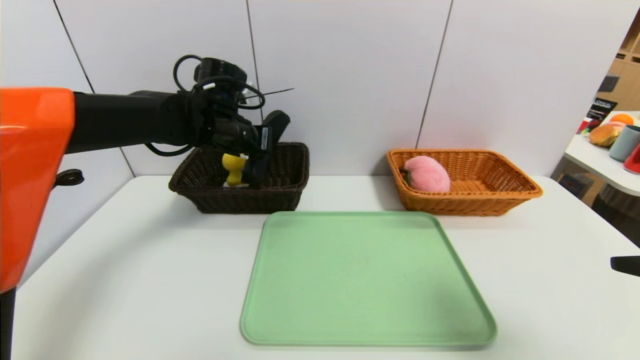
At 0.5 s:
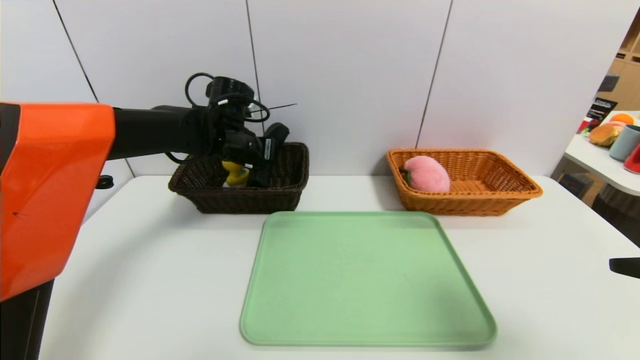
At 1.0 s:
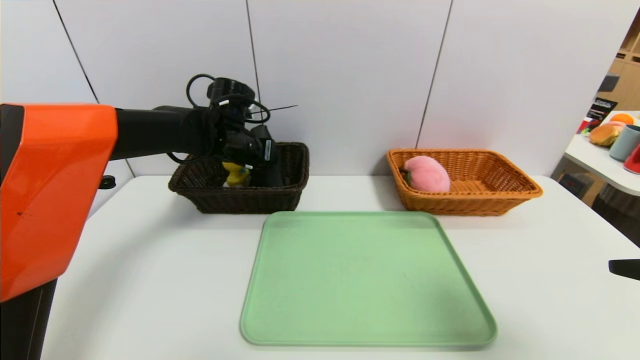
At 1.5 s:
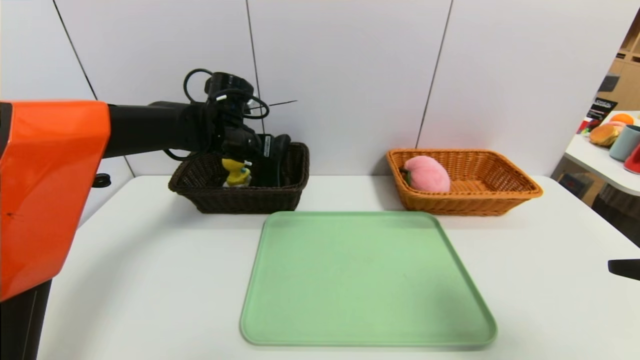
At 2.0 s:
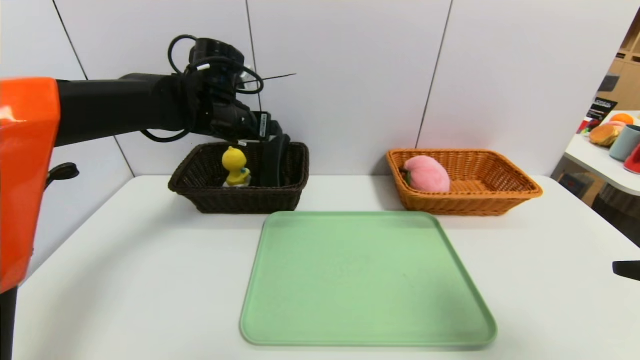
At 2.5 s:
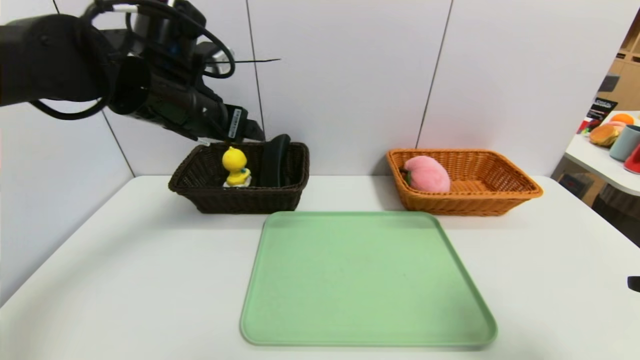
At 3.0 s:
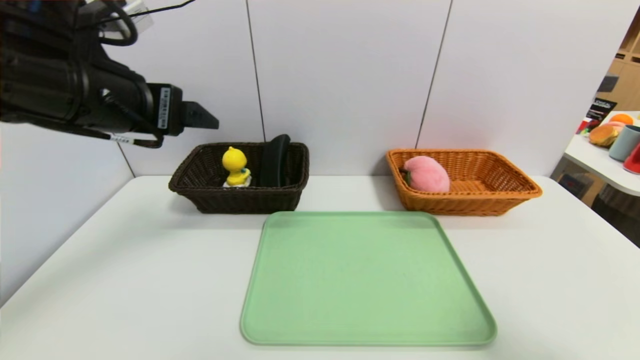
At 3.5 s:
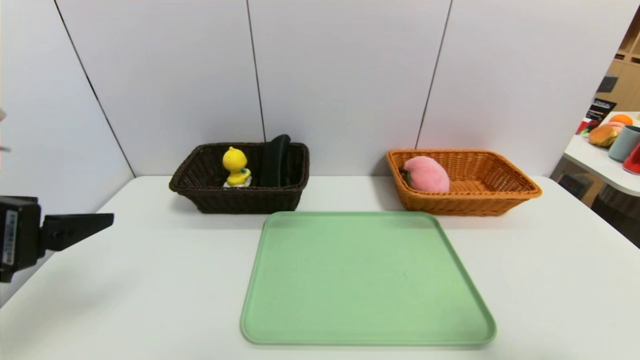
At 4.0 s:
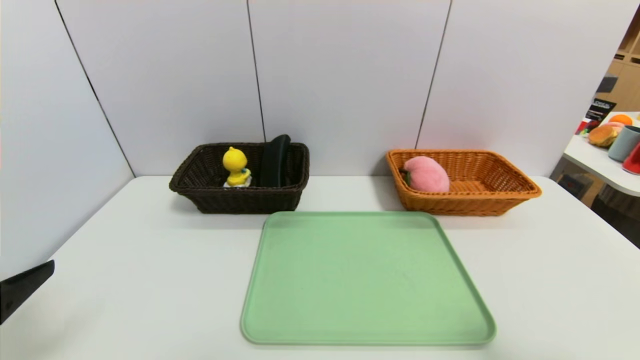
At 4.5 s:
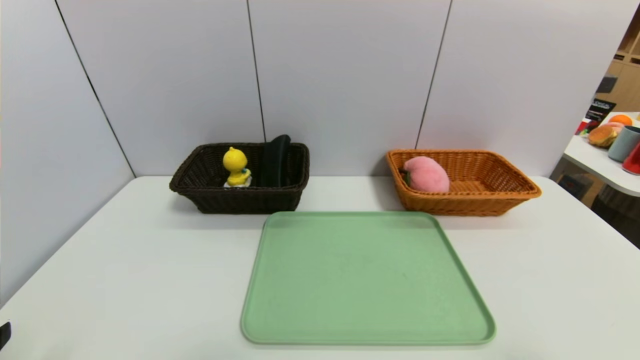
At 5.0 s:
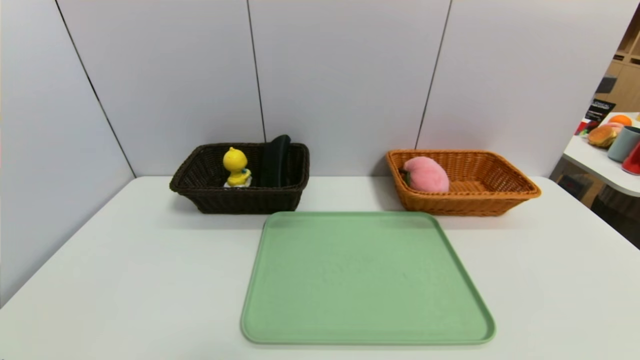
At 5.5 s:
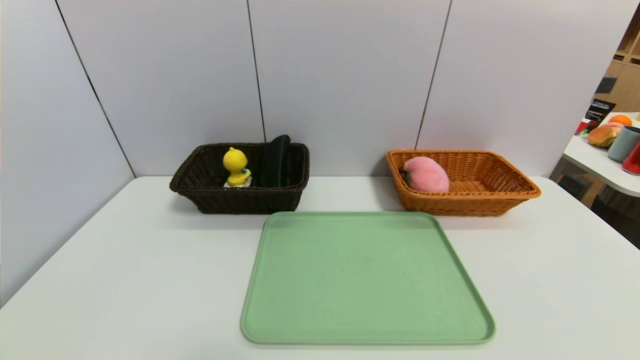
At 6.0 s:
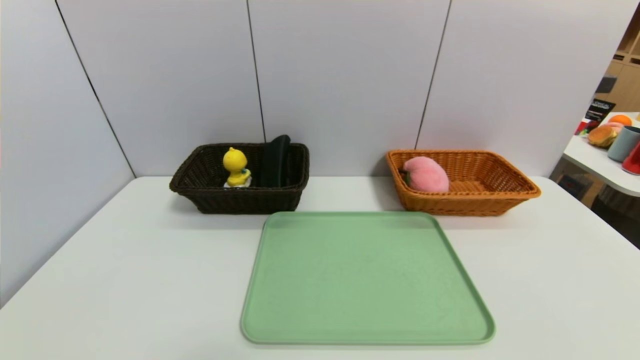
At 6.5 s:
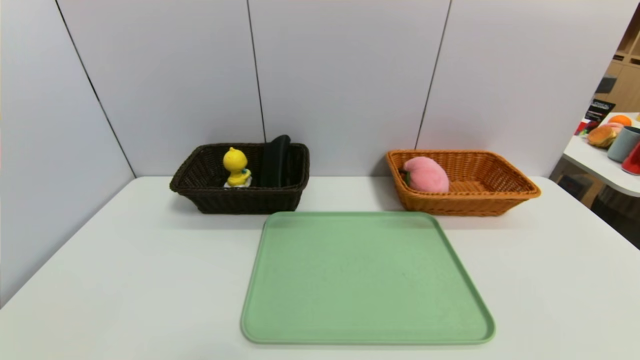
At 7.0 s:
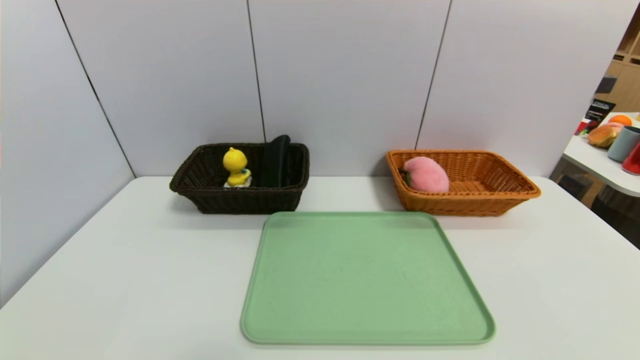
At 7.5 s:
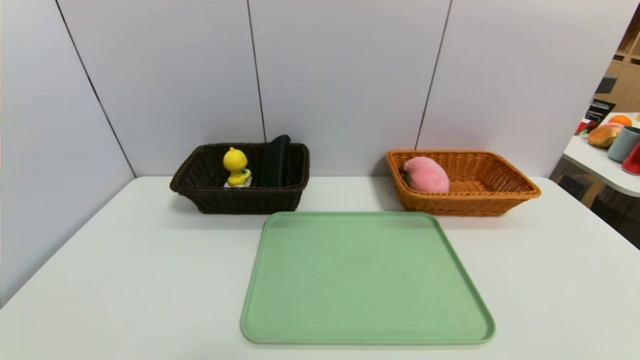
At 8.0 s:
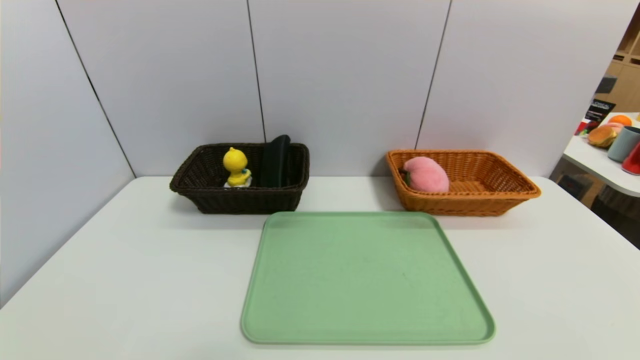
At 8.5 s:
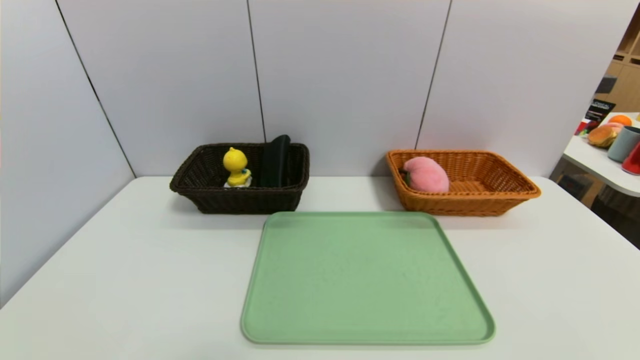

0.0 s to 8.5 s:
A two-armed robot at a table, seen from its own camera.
Task of the whole recording: place the food in the right basket with the right gripper, and place the non food items in the left basket with the left gripper.
Step, 0.0 to 2.0 s: Grasp the glasses case and put it in the left basket.
0.0 to 2.0 s: The left gripper opens up.
2.0 to 4.0 s: The left gripper goes some 35 cm backward and to the left, while the right gripper shifts by about 5 cm.
4.0 to 6.5 s: The two grippers go some 15 cm downward and backward.
